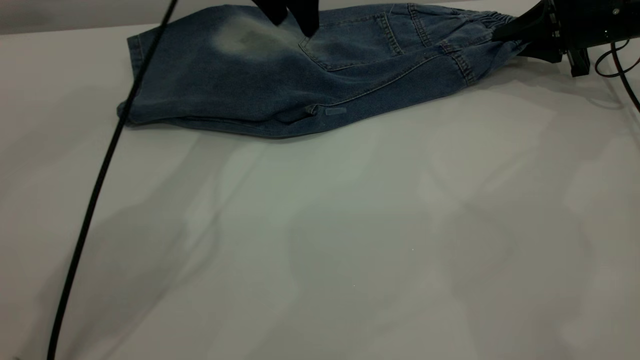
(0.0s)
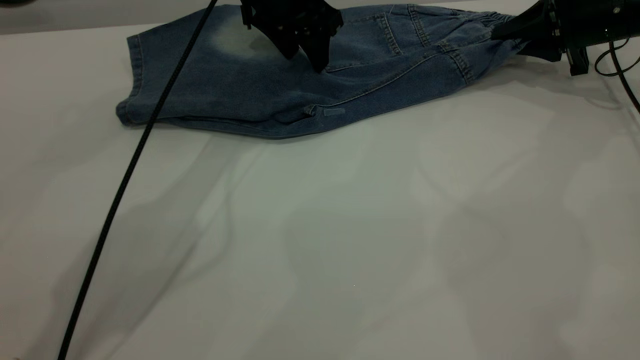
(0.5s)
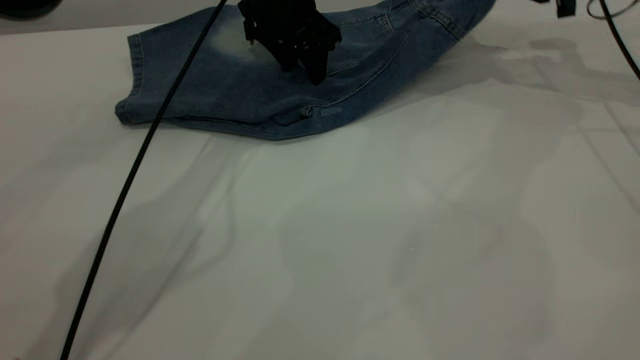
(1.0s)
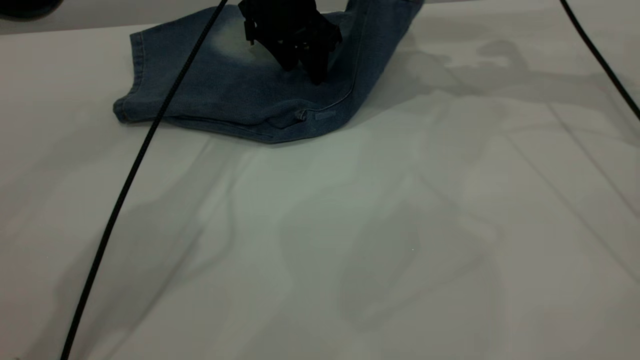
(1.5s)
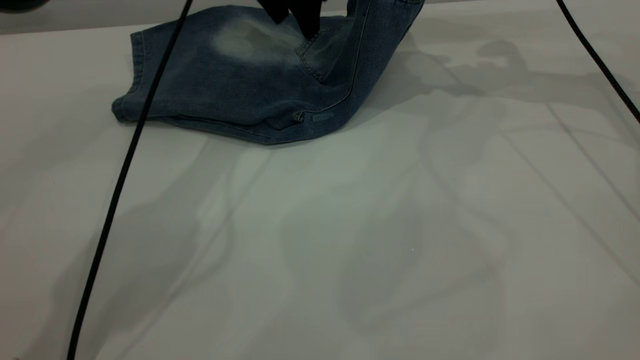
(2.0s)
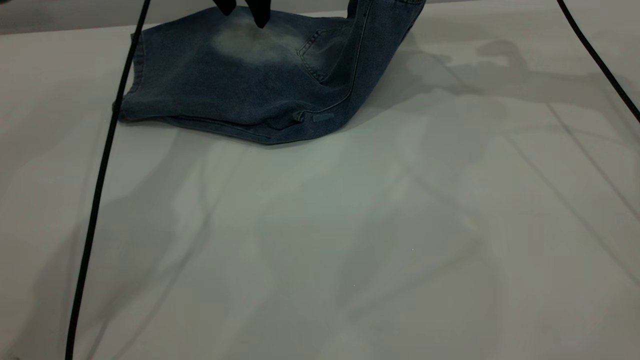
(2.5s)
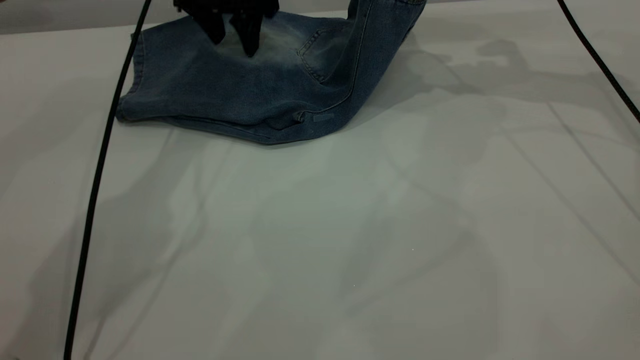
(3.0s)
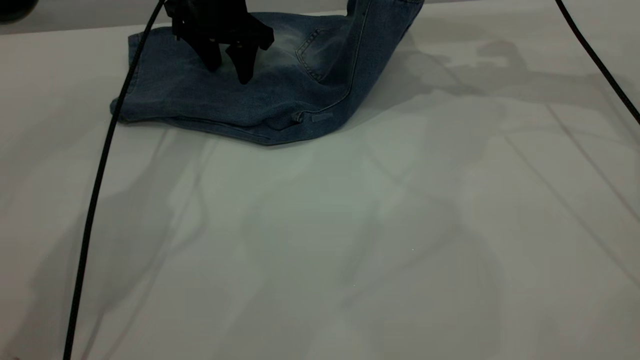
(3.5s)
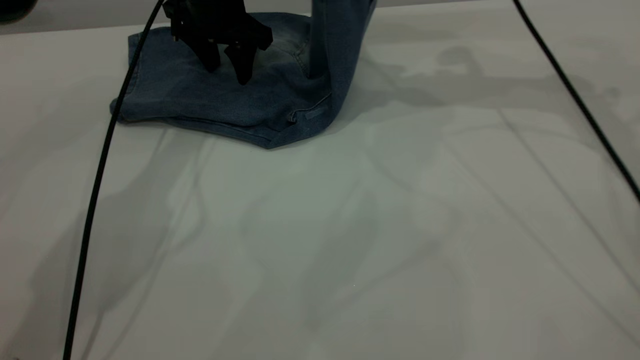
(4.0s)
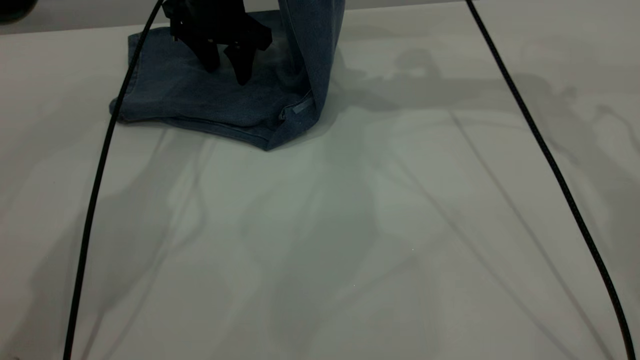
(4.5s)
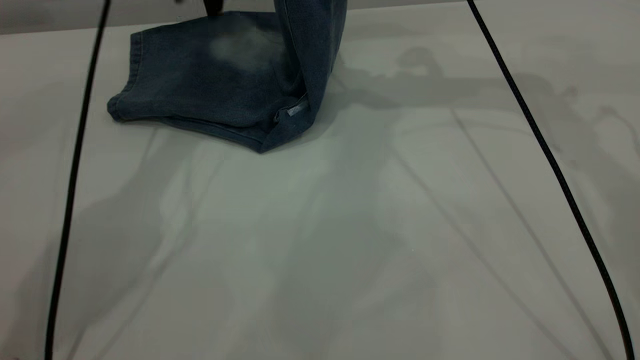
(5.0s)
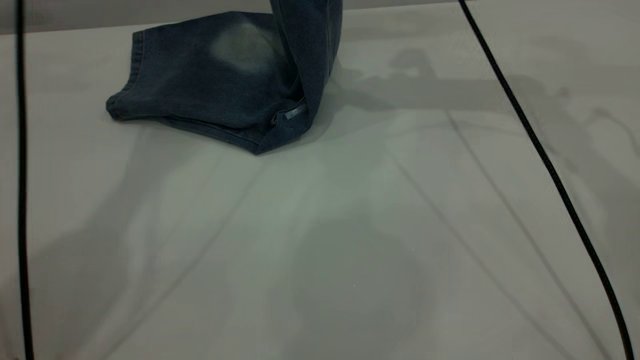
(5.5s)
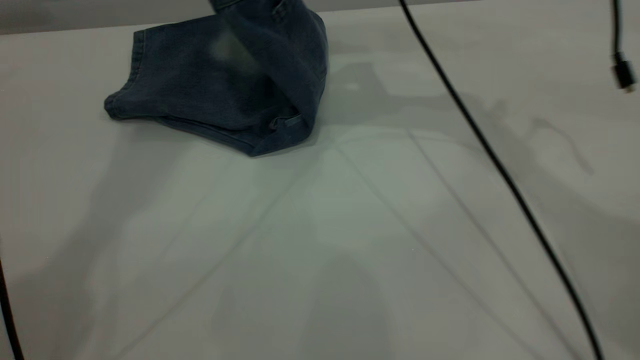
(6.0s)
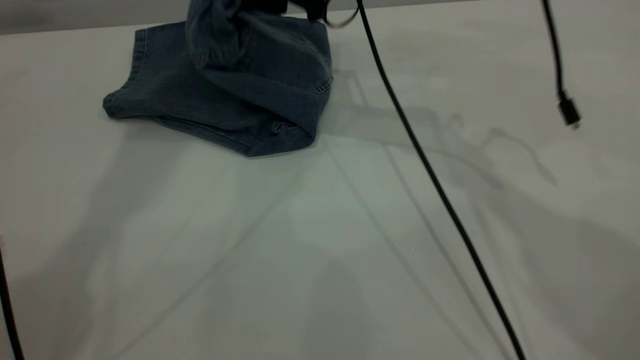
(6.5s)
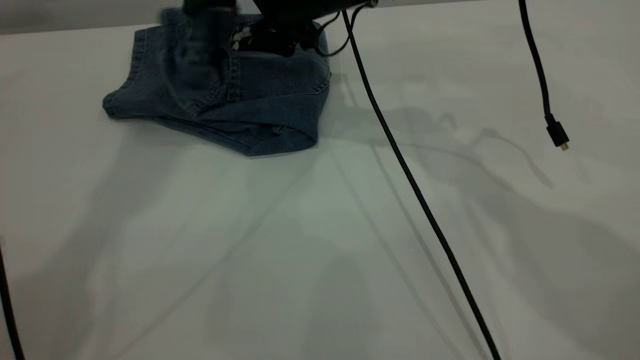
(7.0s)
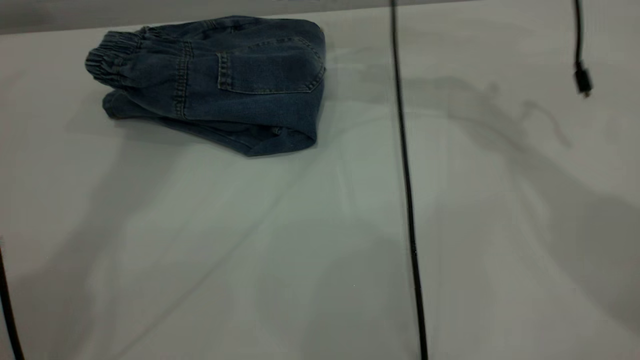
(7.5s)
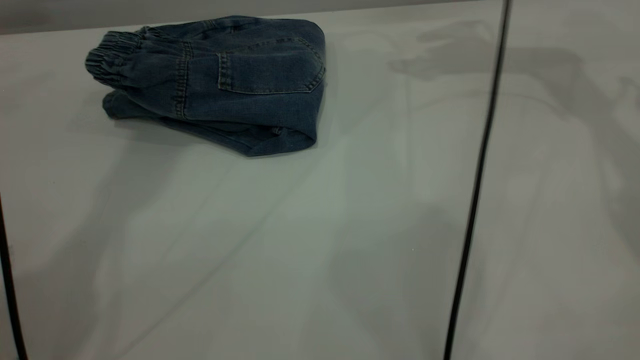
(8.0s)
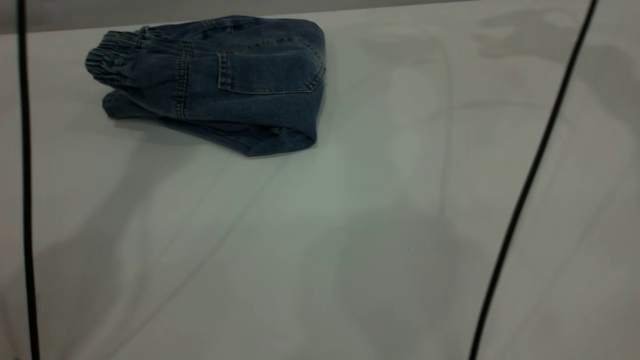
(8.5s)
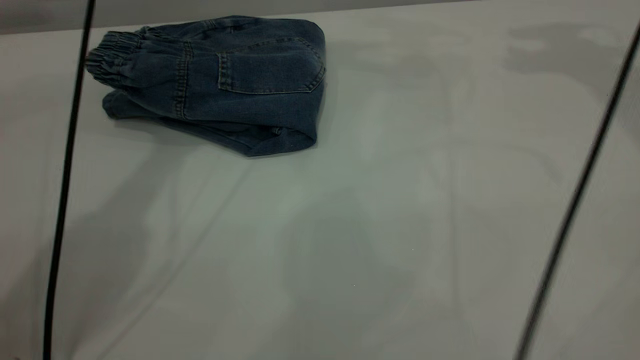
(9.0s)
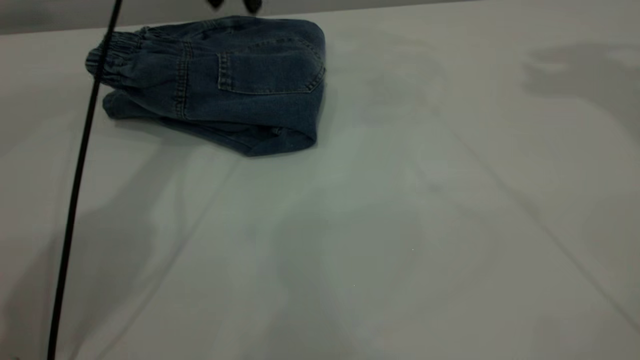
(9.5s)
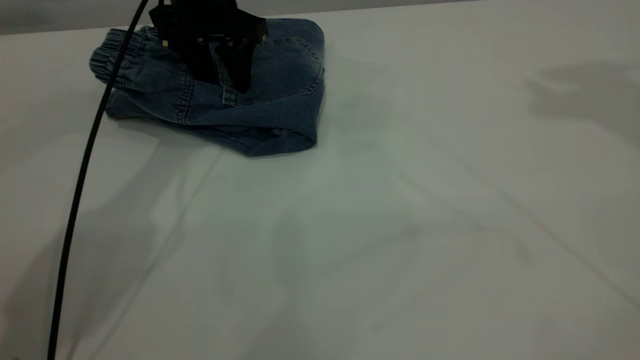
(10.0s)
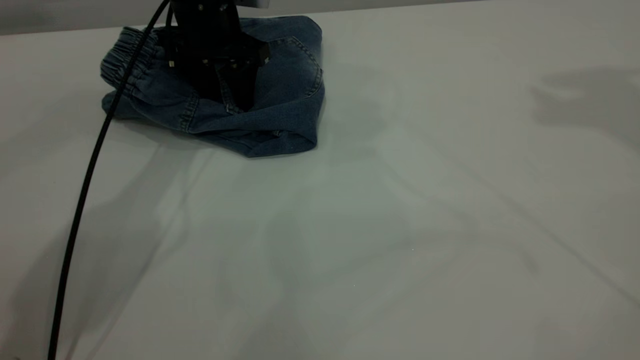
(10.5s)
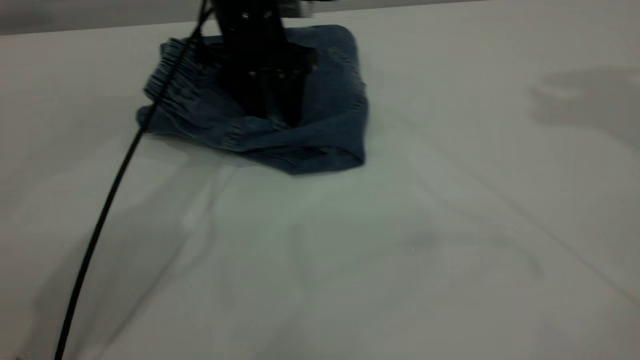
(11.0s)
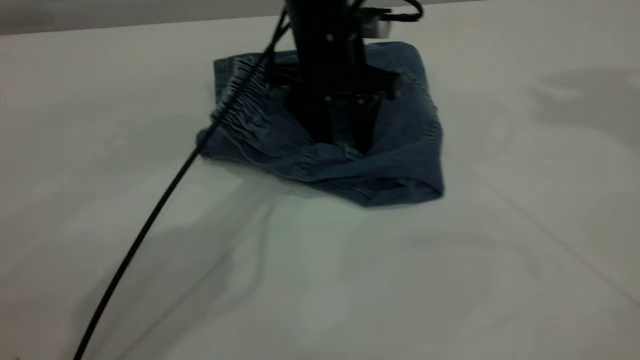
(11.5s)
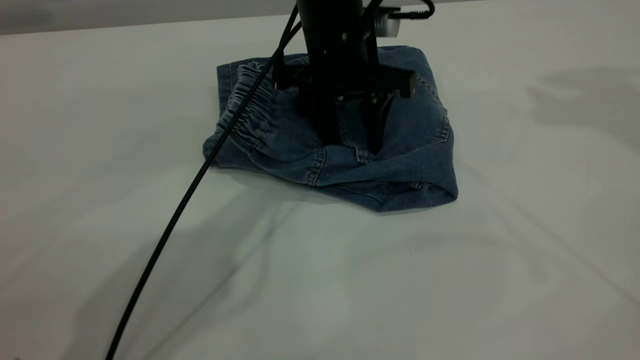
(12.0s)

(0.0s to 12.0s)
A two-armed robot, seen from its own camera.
Step, 0.0s - 7.5s: Fold your pants from right to left.
0.0s - 2.0s: The right gripper moves upward and to the left, about 15 cm.
2.0s - 4.0s: The left gripper goes approximately 10 cm to the left and downward; the right gripper heads to the left, covering some 5 cm.
4.0s - 6.0s: The right gripper is displaced to the left by approximately 15 cm. The left gripper heads upward, covering about 35 cm.
6.0s - 8.0s: The right gripper heads to the right and forward, covering approximately 20 cm, and opens.
8.0s - 10.0s: The left gripper heads downward, covering about 30 cm; the right gripper shifts roughly 25 cm upward and backward.
10.0s - 12.0s: The left gripper travels to the right and backward by roughly 15 cm.

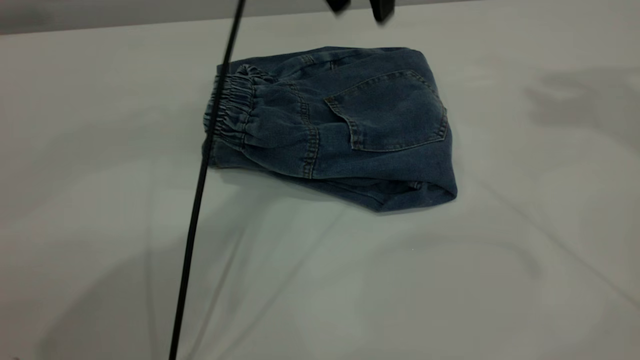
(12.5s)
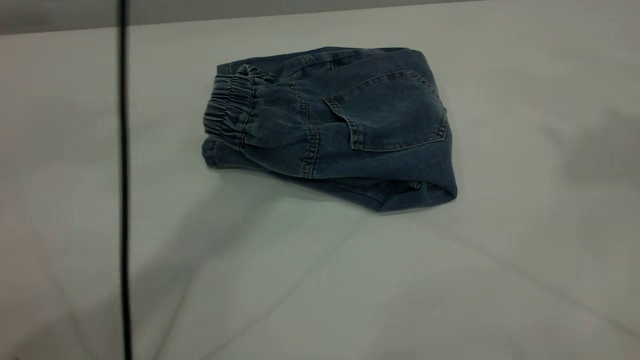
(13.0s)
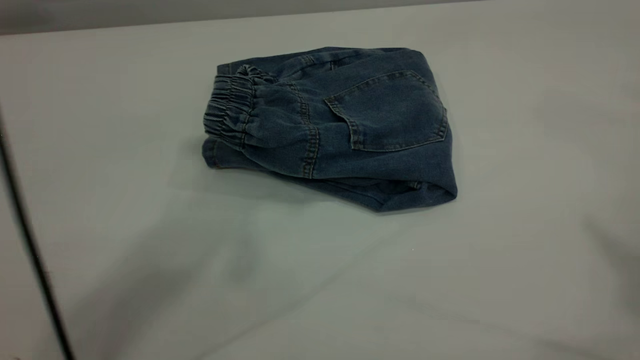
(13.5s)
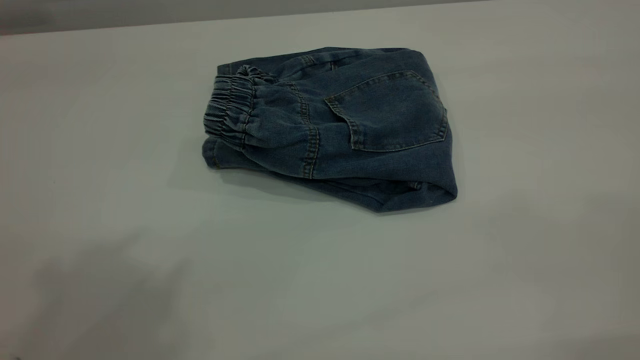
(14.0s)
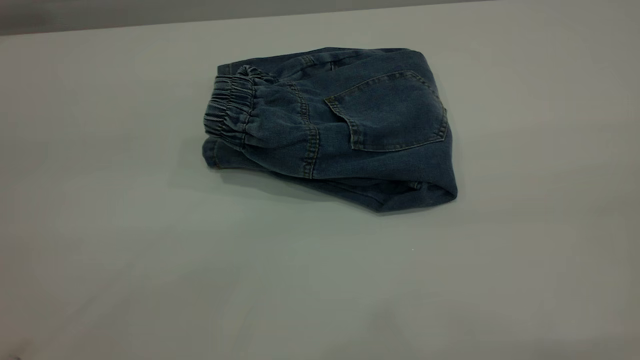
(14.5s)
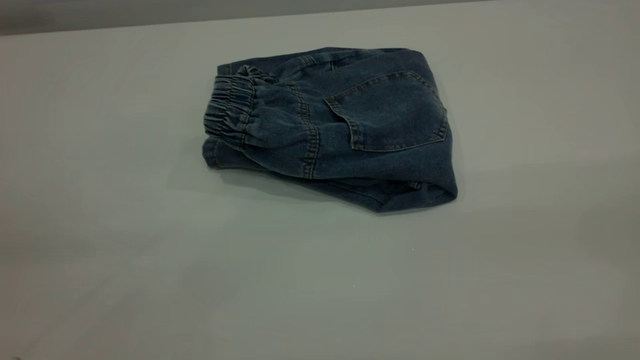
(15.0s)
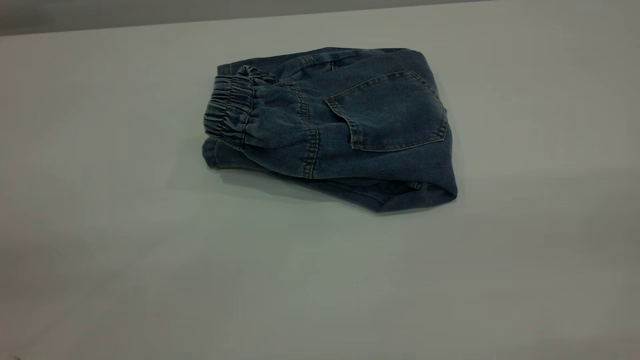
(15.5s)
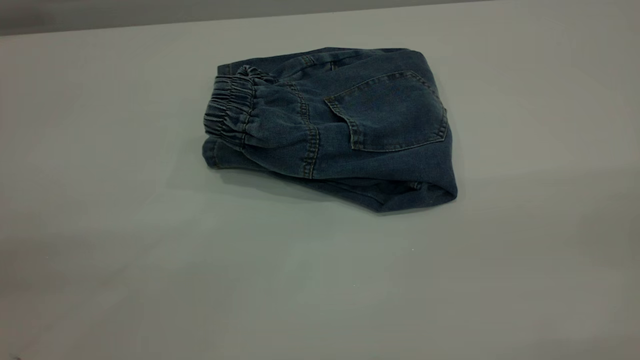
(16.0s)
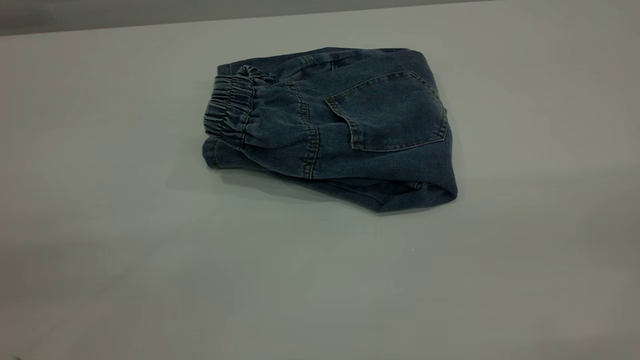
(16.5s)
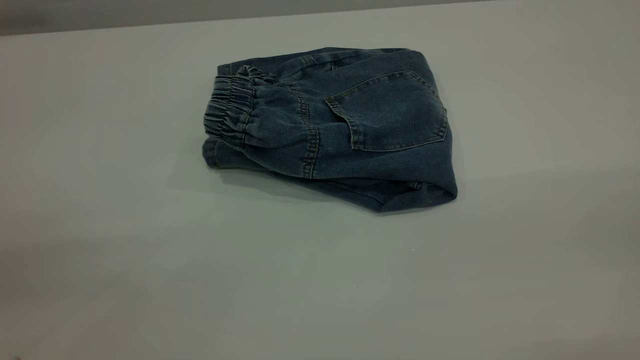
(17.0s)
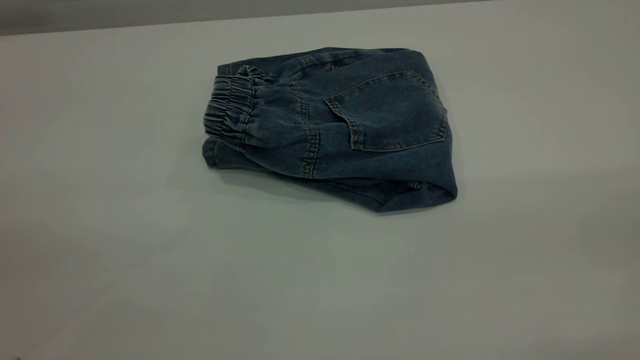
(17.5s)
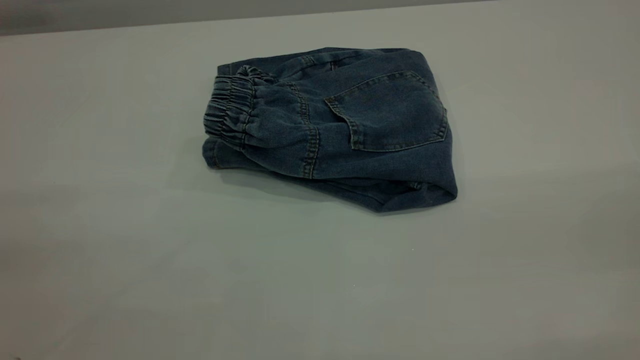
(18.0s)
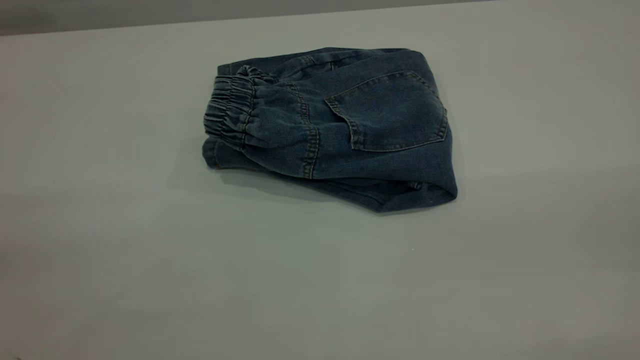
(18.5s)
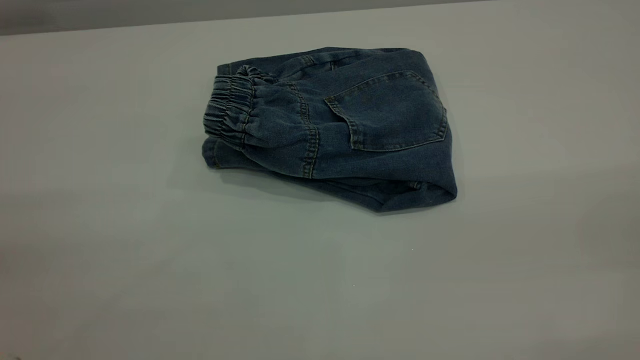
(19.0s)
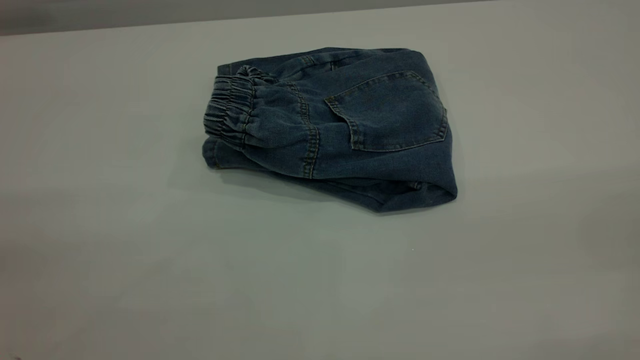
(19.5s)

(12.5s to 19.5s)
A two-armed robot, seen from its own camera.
12.5s - 14.5s: The right gripper moves backward, approximately 35 cm, while the left gripper goes roughly 50 cm backward, to the left and upward.
